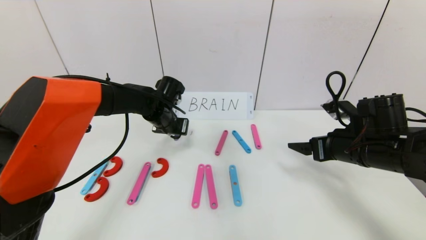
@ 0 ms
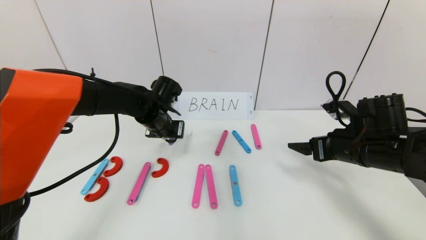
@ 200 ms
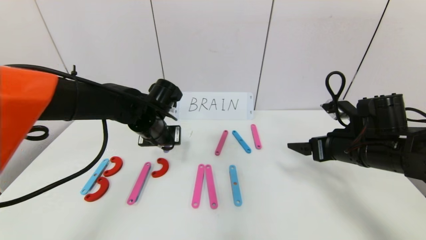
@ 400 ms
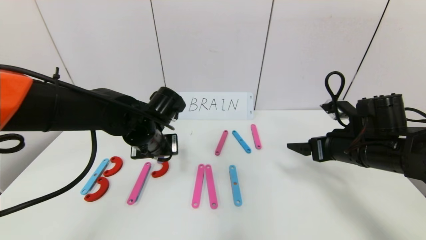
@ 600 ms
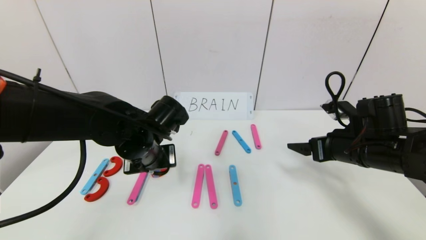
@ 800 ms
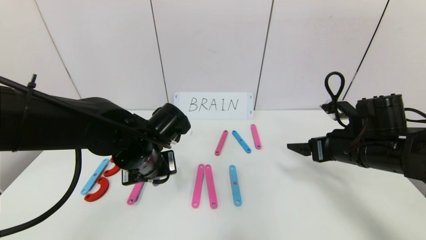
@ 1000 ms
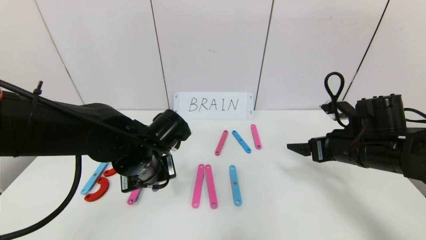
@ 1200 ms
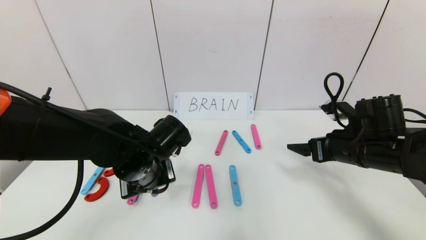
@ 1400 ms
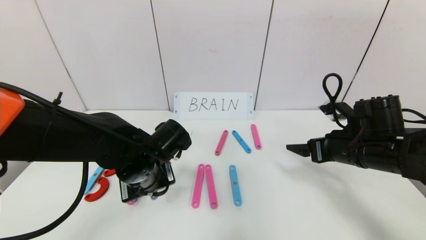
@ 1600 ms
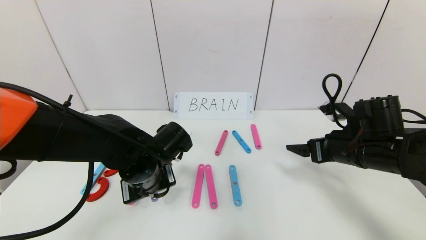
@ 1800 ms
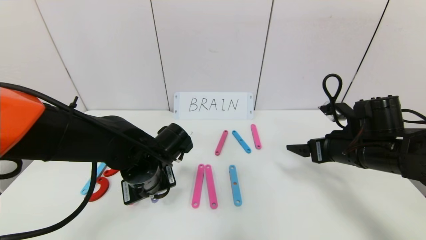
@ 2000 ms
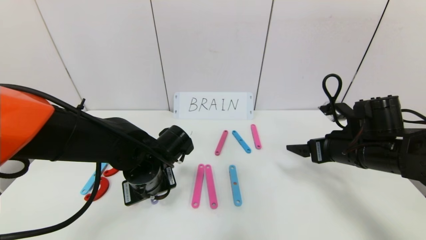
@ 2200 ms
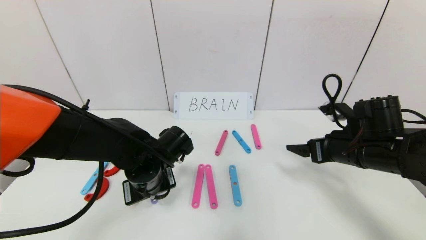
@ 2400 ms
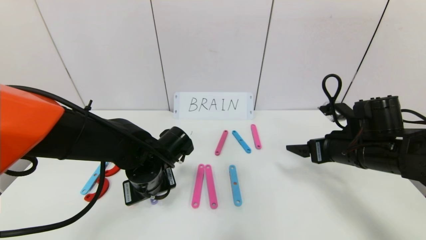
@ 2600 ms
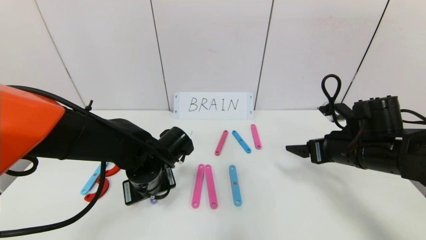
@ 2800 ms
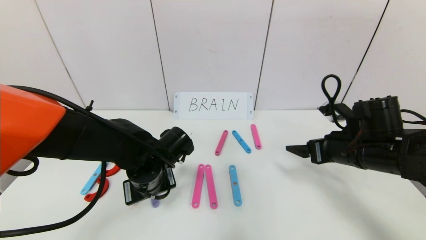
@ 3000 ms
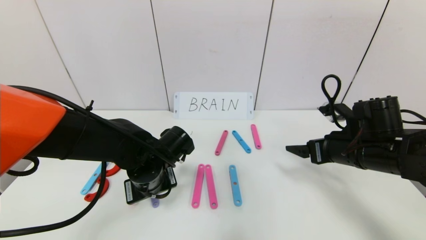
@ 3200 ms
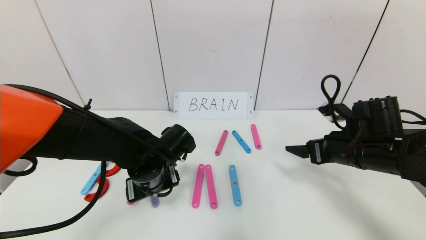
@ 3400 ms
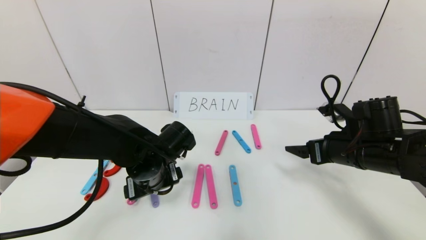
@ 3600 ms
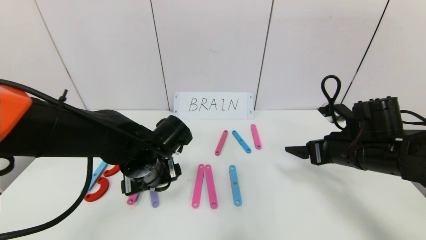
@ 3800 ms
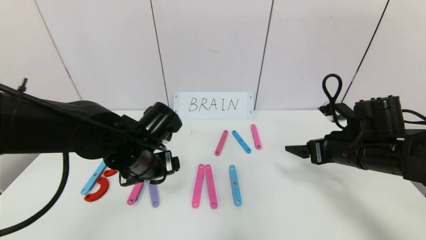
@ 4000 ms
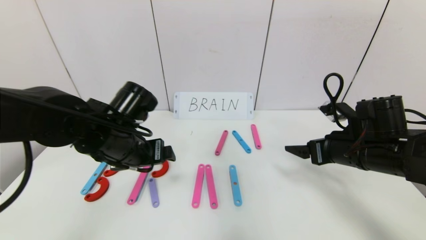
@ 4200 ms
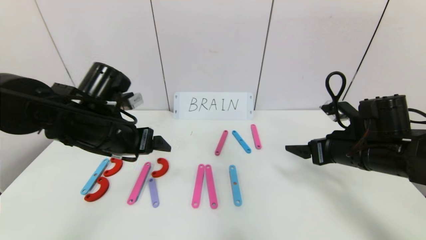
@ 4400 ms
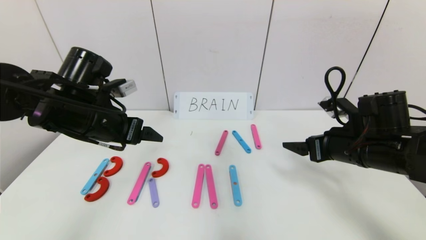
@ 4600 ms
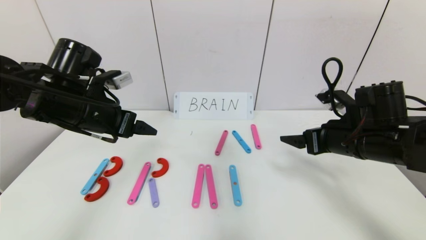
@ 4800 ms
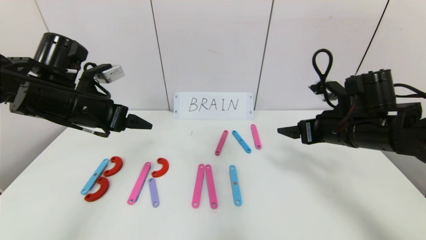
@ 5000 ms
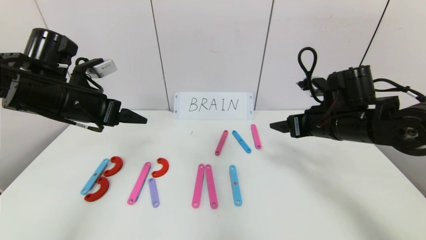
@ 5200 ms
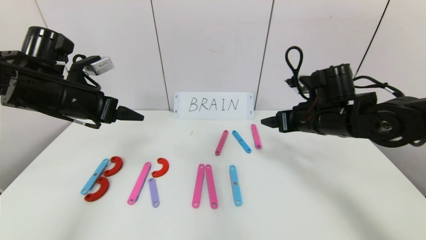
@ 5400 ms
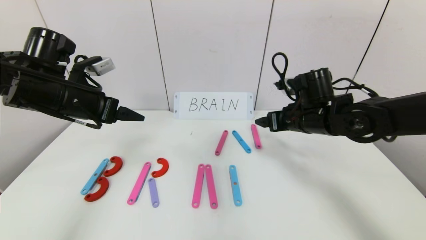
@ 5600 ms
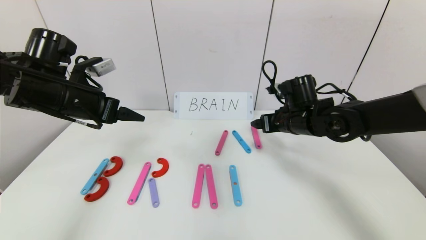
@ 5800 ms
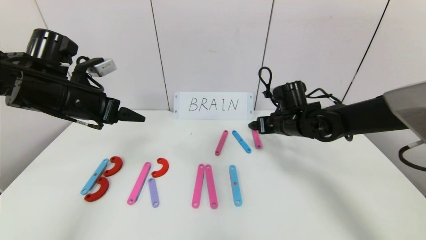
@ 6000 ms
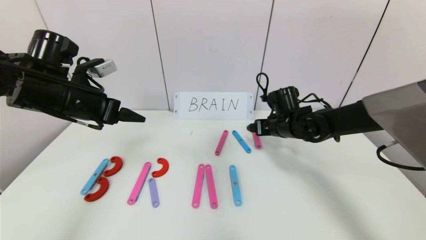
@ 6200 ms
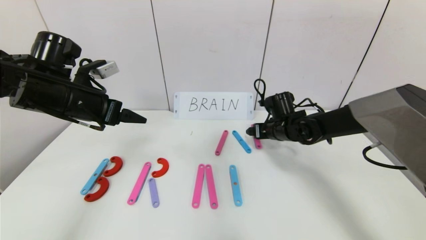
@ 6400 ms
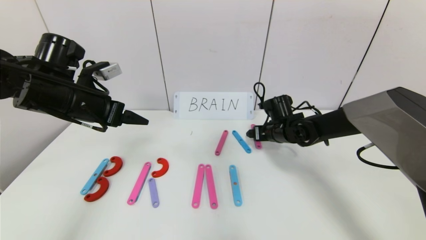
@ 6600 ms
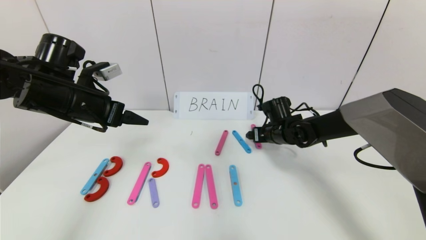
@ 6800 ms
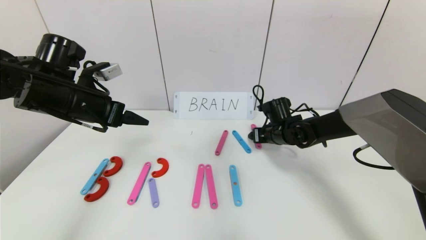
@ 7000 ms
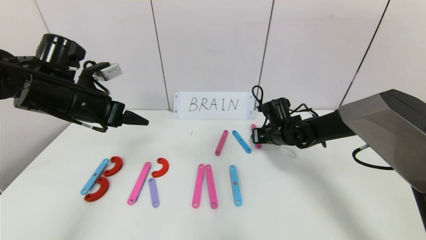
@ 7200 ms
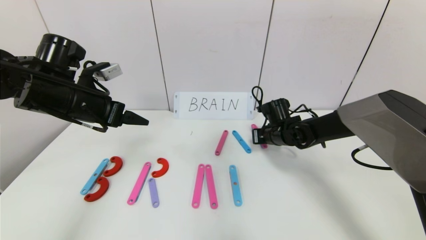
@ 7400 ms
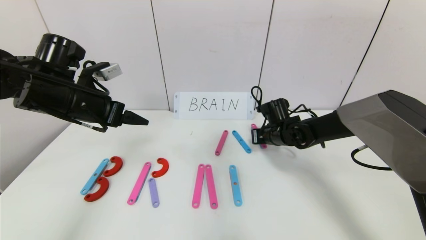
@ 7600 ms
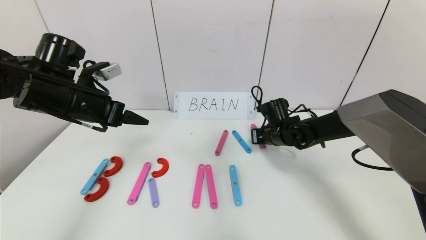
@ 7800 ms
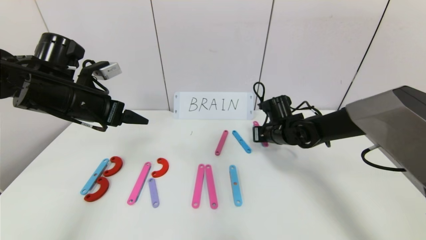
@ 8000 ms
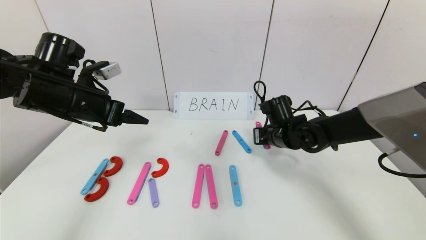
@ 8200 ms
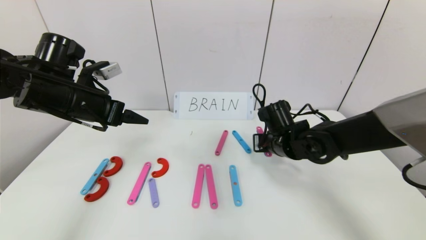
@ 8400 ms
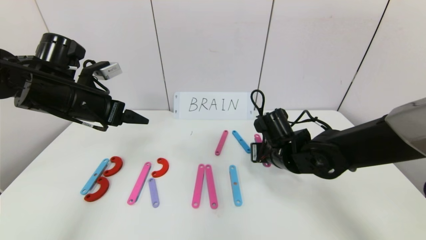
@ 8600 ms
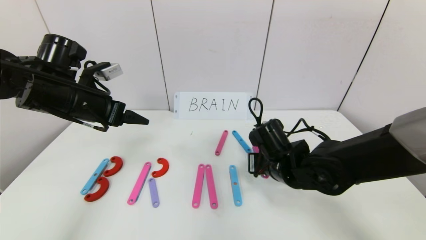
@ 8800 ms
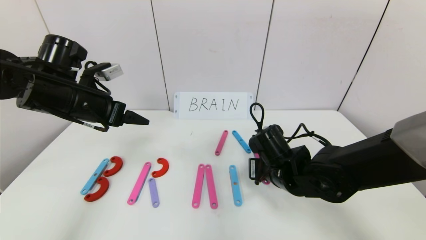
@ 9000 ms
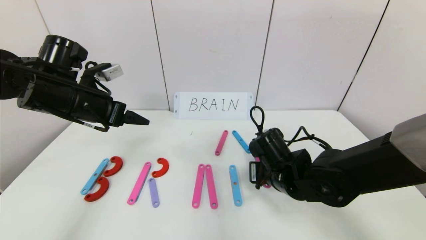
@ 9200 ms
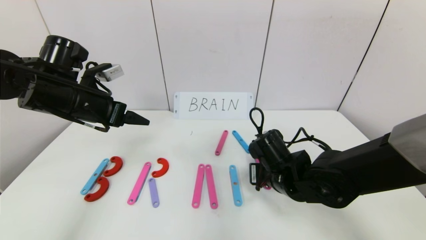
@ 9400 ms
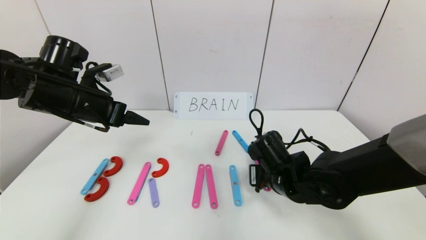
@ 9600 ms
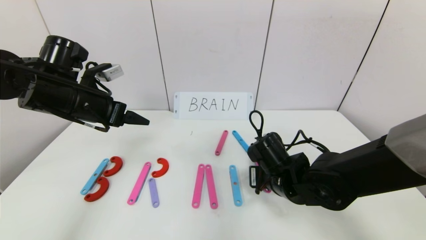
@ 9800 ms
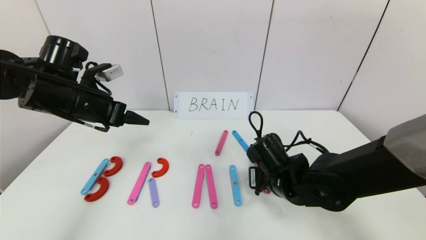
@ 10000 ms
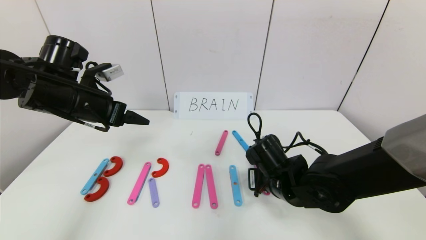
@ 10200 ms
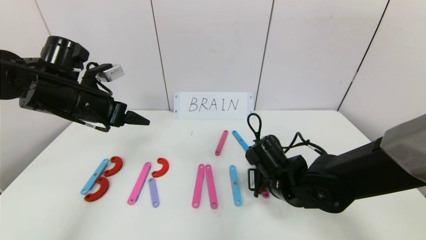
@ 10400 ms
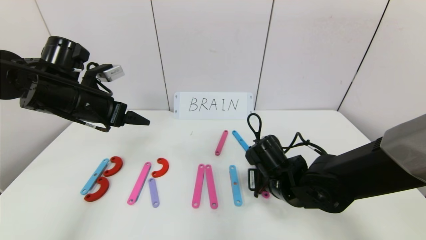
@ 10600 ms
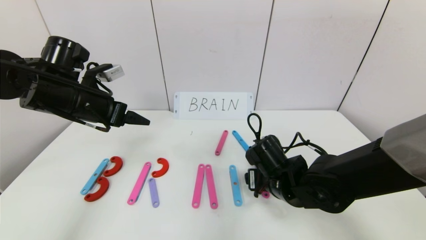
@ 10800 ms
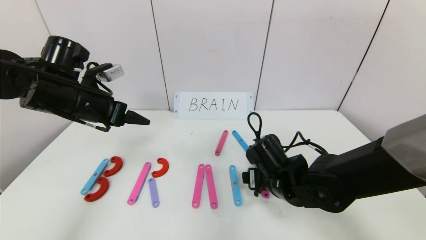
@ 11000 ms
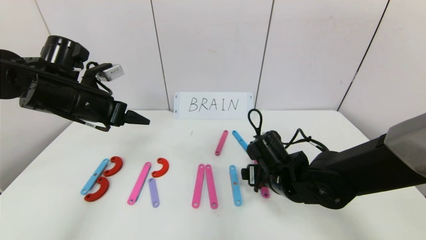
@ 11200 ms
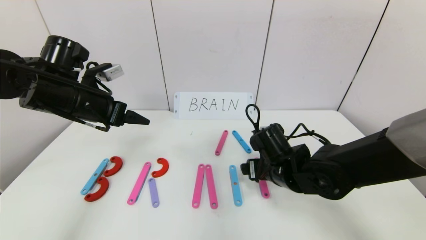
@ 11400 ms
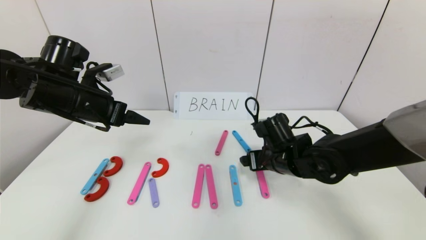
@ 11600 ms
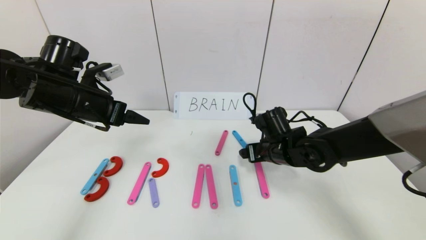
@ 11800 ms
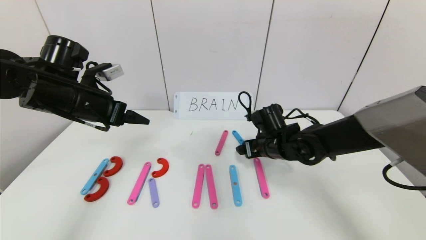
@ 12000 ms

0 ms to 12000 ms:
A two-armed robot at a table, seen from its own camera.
Task of the whole recording: rearrange the word baai as brain.
Step, 0 ms to 3200 ms: Place the character R between first character B and third character A.
0 ms to 1600 ms: The left gripper moves backward, about 15 cm.
1600 ms to 3000 ms: The grippers move only a little.
3000 ms to 4400 ms: The left gripper heads upward and to the left, covering about 15 cm, and opens up.
4400 ms to 6000 ms: The right gripper heads forward and to the left, covering approximately 15 cm. The left gripper goes about 5 cm to the left.
6000 ms to 7600 ms: The right gripper heads downward, covering approximately 5 cm, and closes up.
7600 ms to 9000 ms: The right gripper shifts roughly 15 cm backward.
9000 ms to 10400 ms: There are only small adjustments of the grippers.
10400 ms to 12000 ms: The right gripper shifts some 10 cm forward, and opens up.

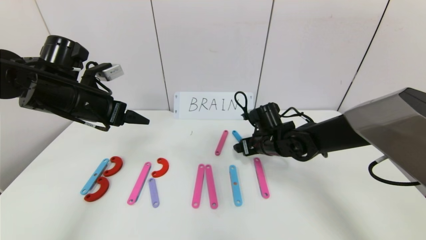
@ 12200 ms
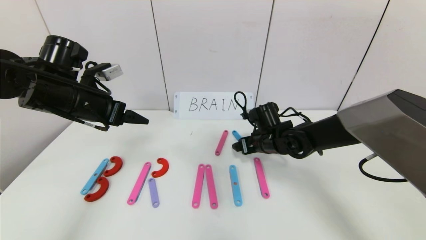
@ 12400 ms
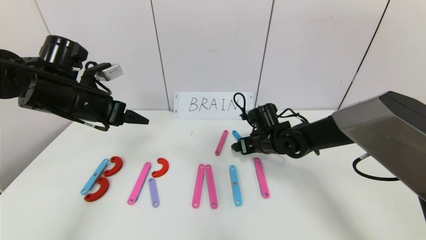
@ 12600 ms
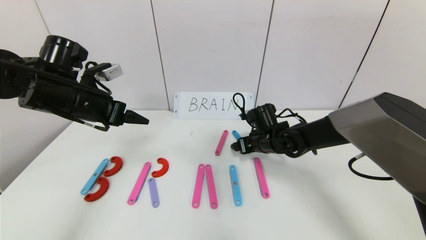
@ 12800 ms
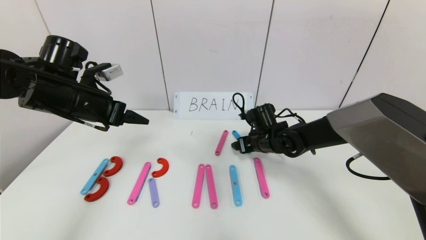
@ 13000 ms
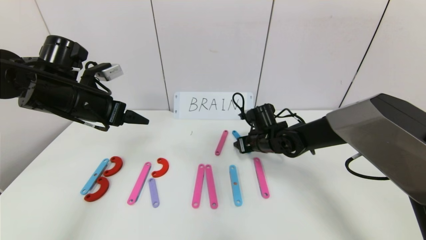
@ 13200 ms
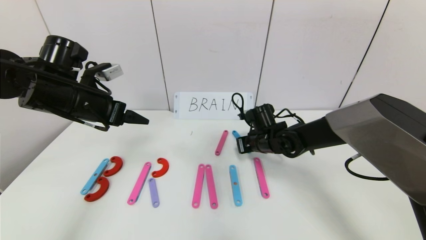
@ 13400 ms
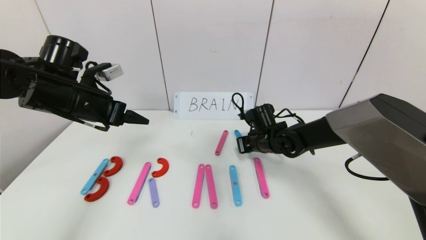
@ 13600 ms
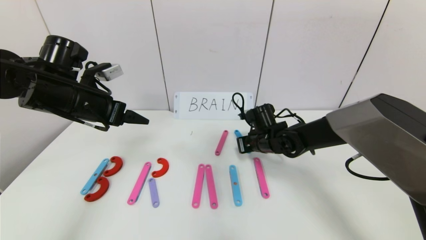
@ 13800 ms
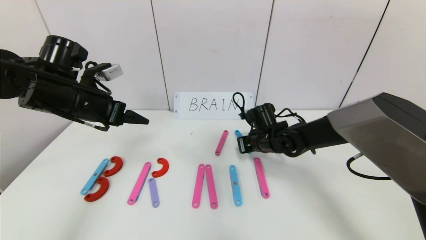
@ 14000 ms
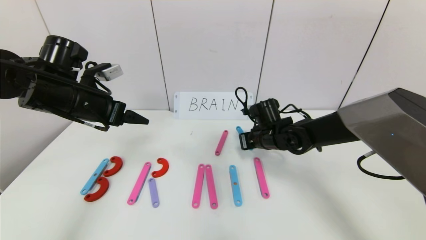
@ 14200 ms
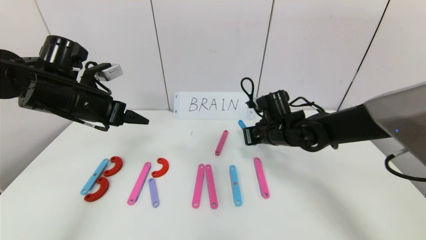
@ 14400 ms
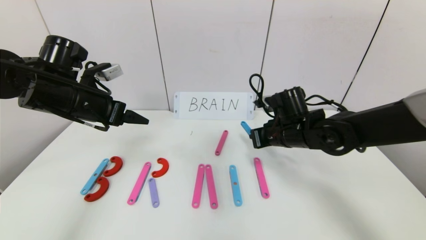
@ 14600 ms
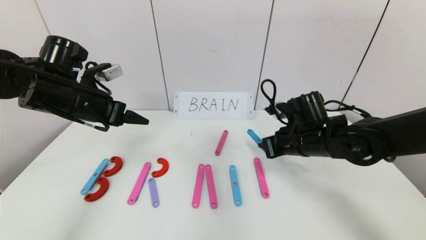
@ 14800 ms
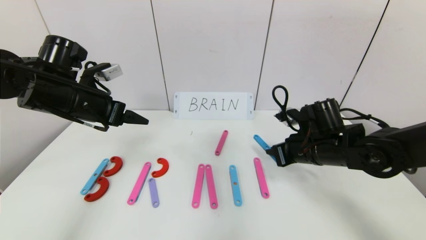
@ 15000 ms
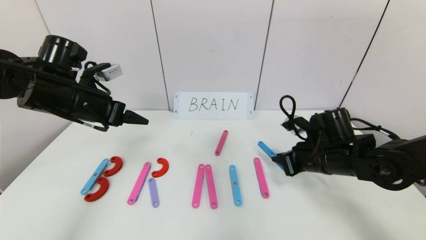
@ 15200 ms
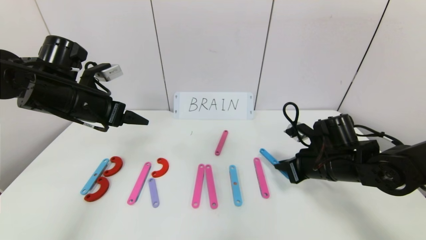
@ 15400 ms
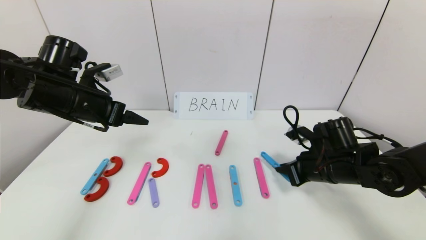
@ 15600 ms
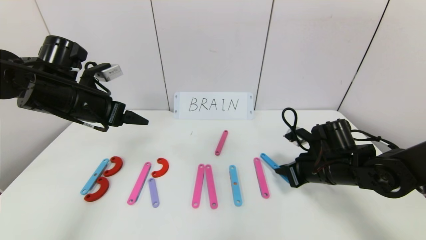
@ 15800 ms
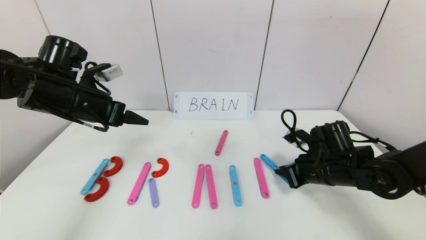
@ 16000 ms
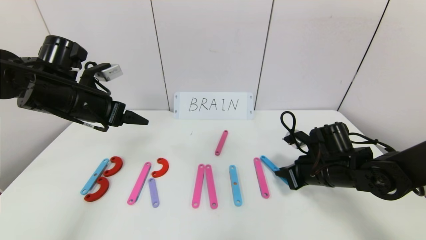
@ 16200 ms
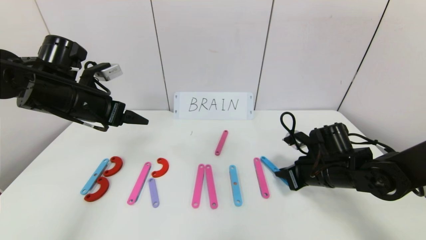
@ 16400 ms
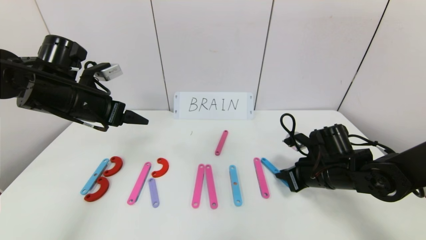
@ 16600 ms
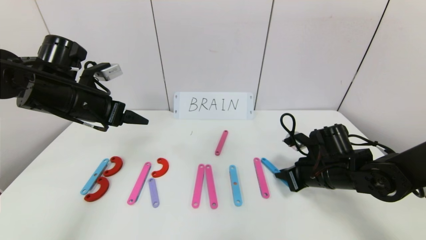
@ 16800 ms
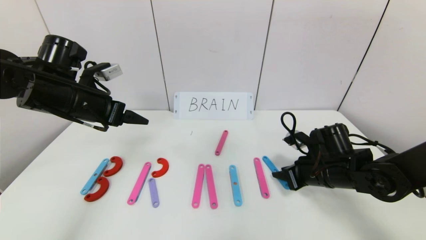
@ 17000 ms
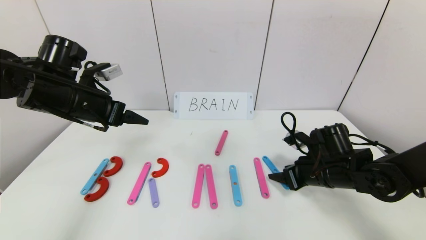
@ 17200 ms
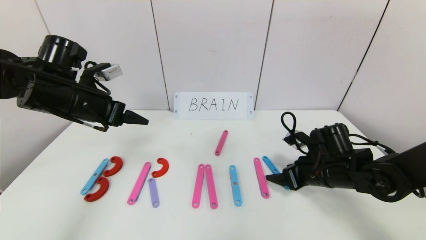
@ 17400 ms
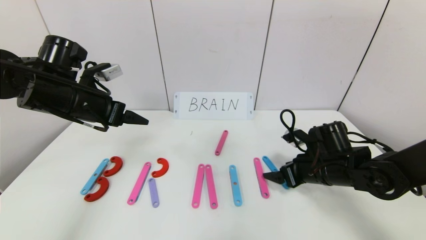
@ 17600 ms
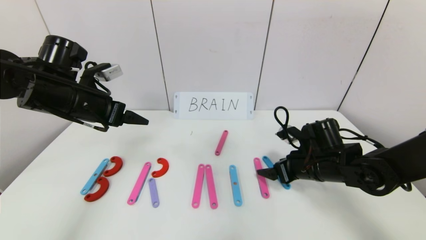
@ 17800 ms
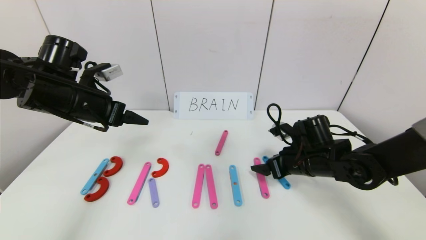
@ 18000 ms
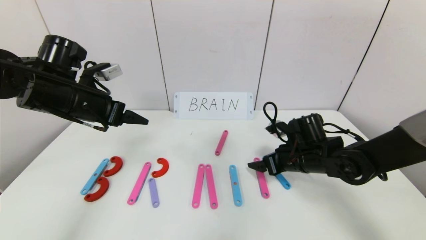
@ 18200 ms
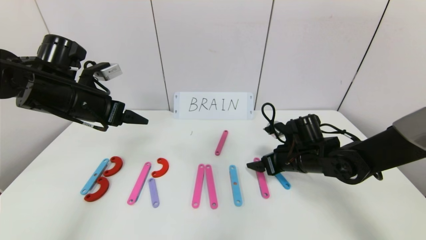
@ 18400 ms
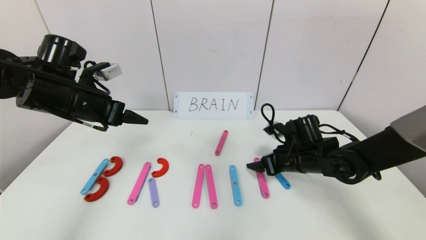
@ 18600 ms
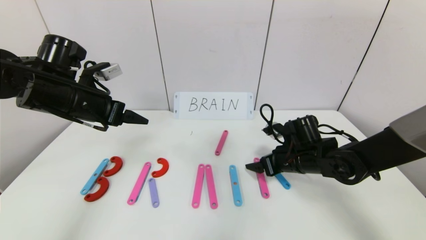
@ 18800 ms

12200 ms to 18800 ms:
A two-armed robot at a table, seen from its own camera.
Task of the whole recording: rearrange the word baai as brain.
12200 ms to 13800 ms: The right gripper closes its fingers.
13800 ms to 15400 ms: The right gripper travels backward and to the right by about 15 cm.
15400 ms to 17200 ms: The right gripper opens up.
17200 ms to 18800 ms: The right gripper changes place by about 5 cm.